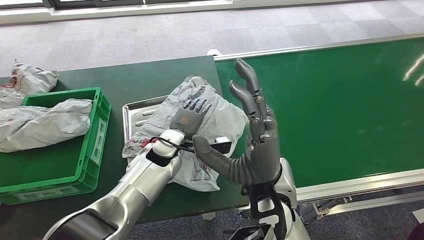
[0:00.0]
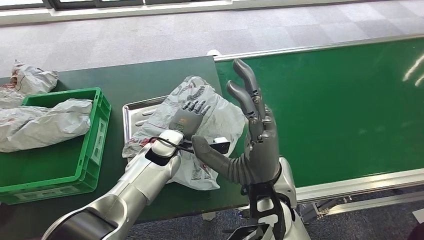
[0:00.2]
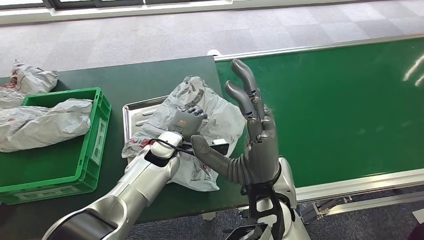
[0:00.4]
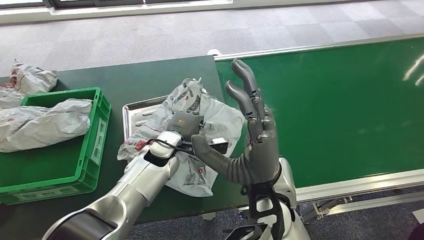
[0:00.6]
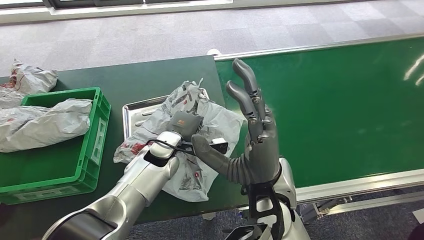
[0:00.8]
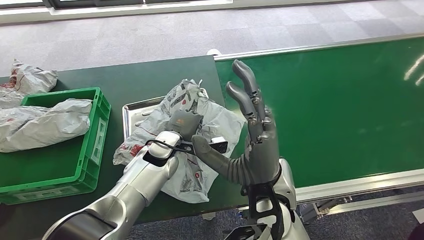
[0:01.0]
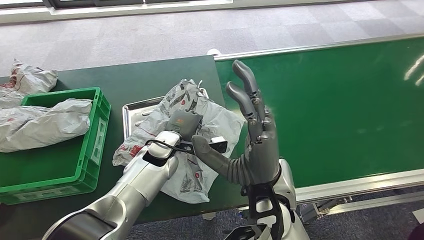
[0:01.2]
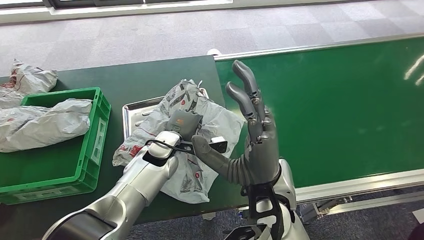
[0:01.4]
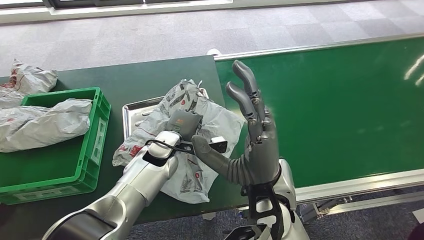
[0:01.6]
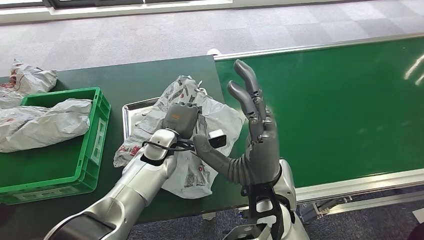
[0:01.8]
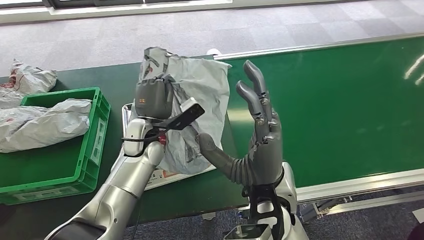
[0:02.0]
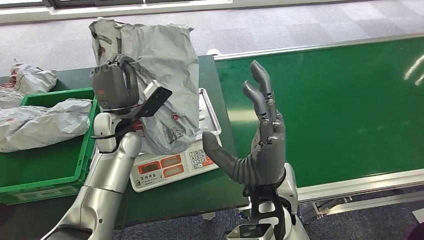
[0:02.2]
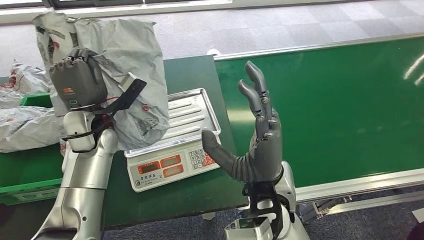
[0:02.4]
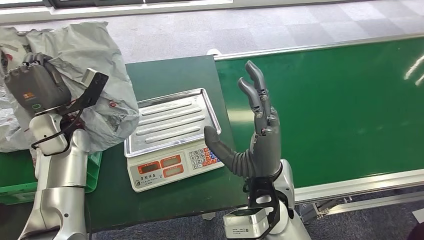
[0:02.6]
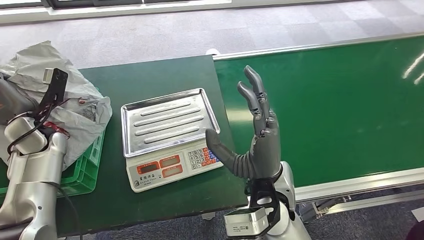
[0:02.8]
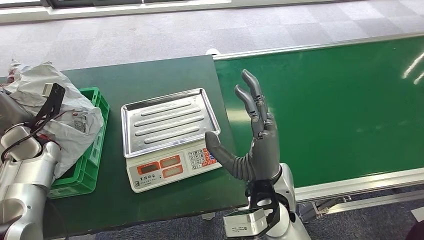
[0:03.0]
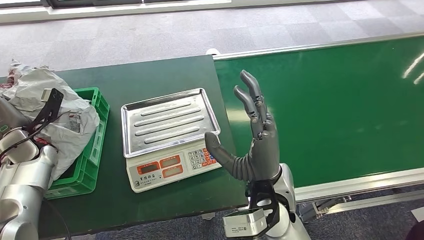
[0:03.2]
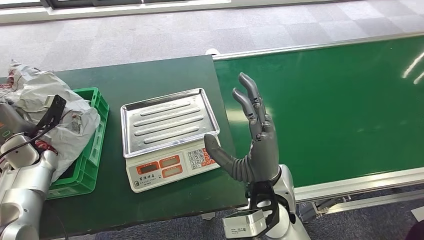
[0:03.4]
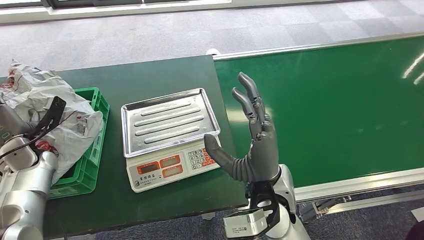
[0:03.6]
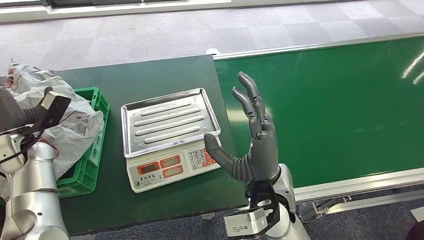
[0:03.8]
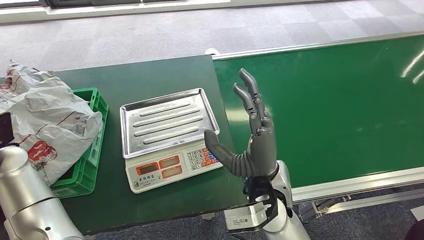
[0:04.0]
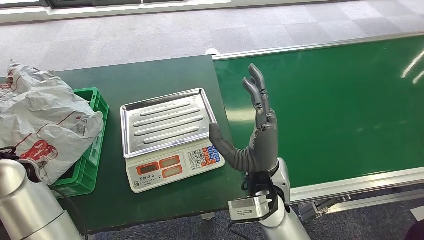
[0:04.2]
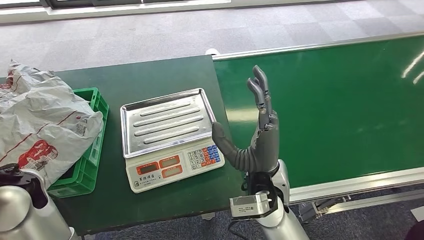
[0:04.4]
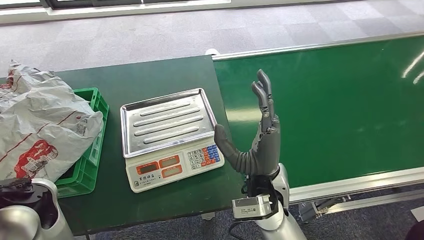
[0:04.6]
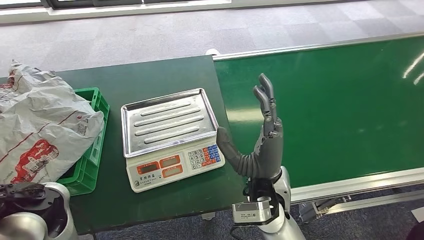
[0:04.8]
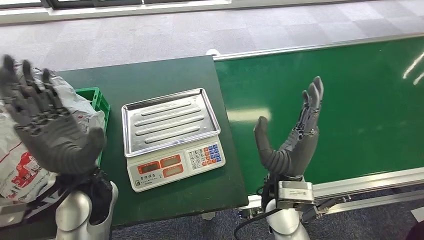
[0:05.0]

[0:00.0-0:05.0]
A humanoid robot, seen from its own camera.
Step, 0:00.0 to 0:02.6: Pick up the package from the inbound machine.
Step, 0:02.8 to 0:05.0: Place the package into the parcel locker.
0:00.0 to 0:01.6: The hands make only small movements.

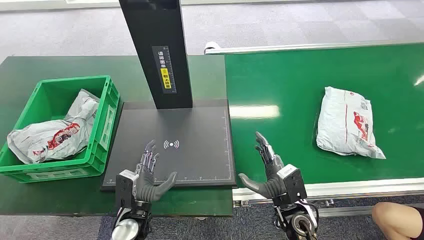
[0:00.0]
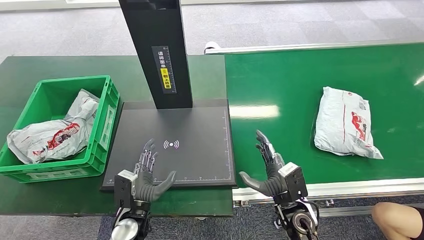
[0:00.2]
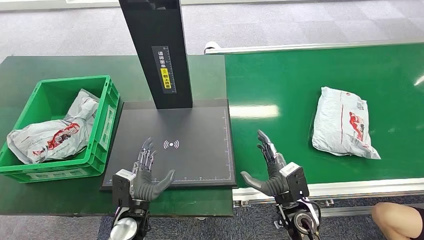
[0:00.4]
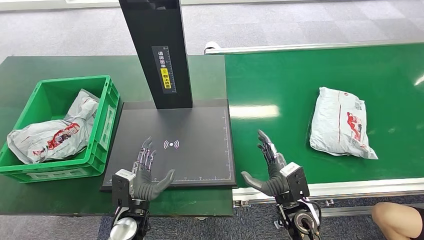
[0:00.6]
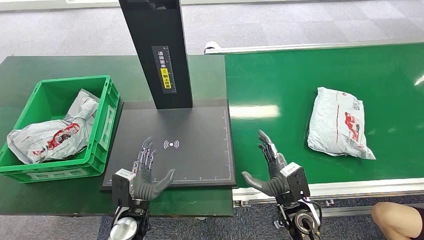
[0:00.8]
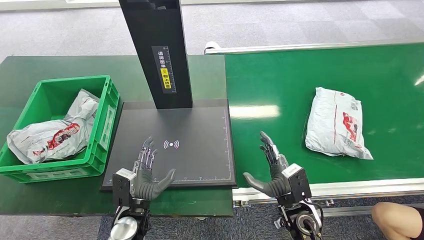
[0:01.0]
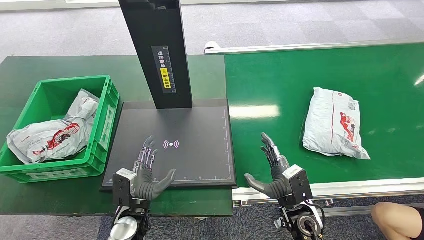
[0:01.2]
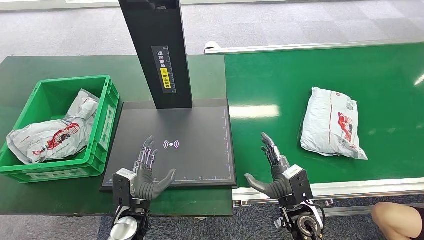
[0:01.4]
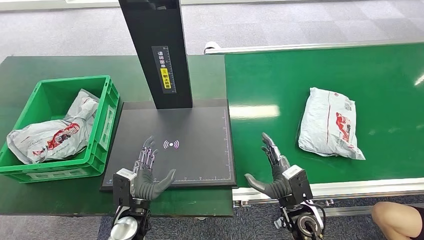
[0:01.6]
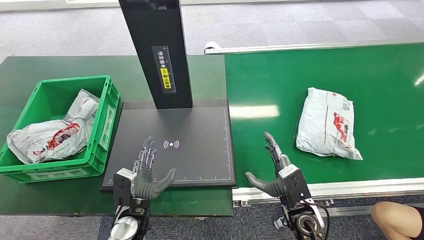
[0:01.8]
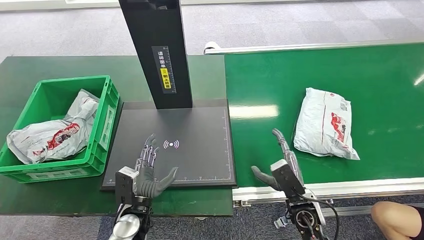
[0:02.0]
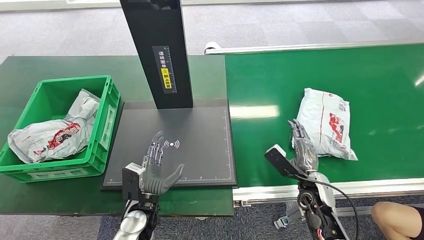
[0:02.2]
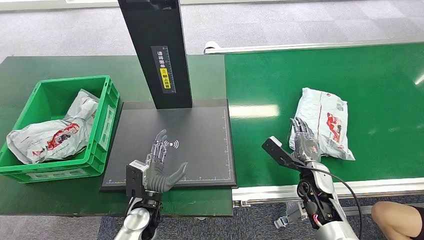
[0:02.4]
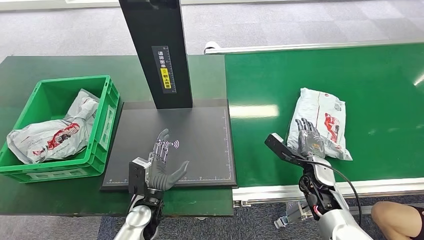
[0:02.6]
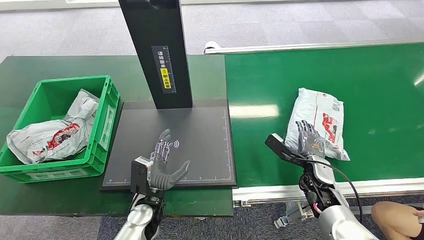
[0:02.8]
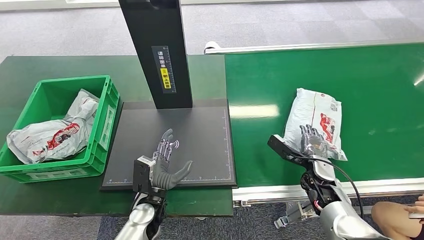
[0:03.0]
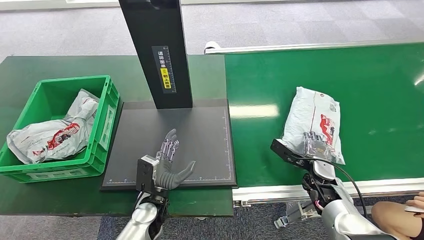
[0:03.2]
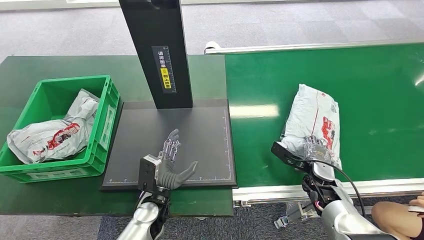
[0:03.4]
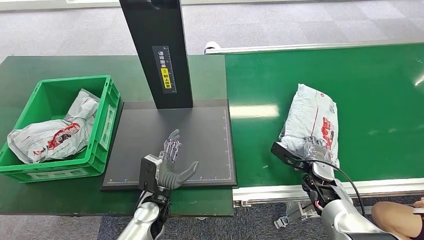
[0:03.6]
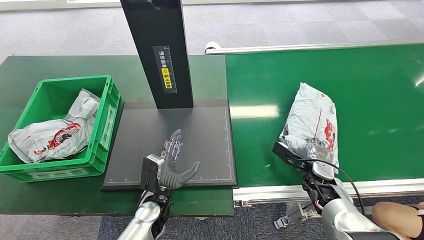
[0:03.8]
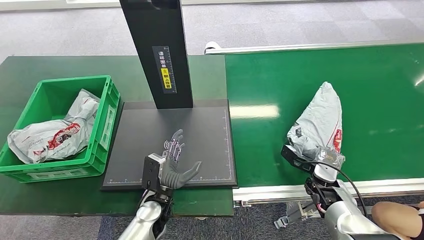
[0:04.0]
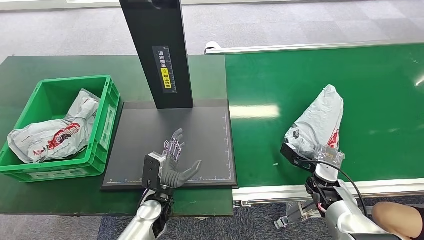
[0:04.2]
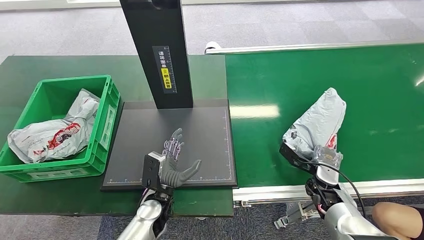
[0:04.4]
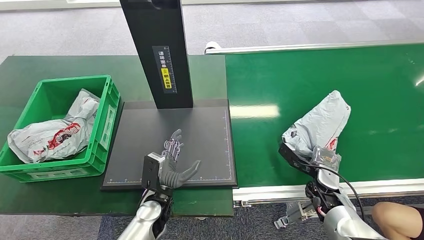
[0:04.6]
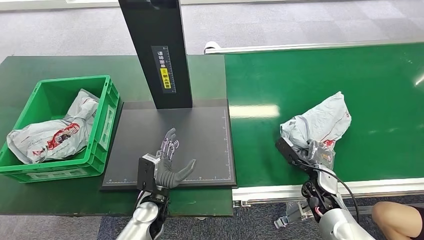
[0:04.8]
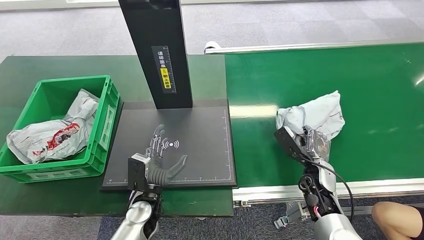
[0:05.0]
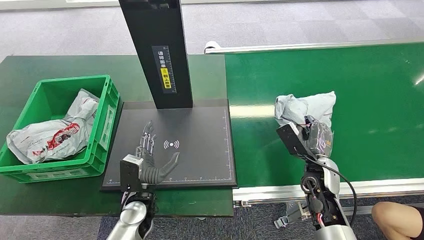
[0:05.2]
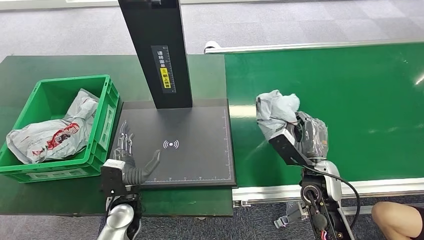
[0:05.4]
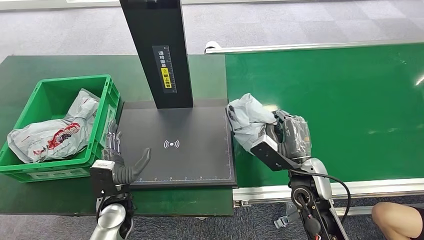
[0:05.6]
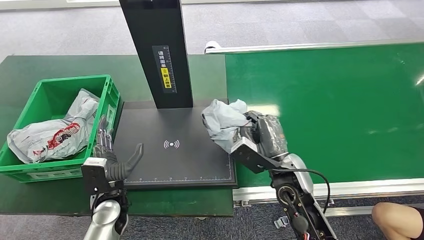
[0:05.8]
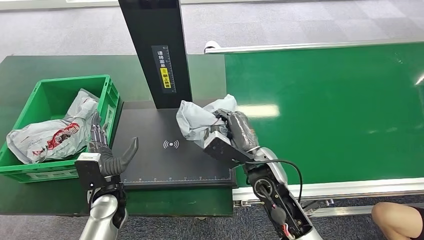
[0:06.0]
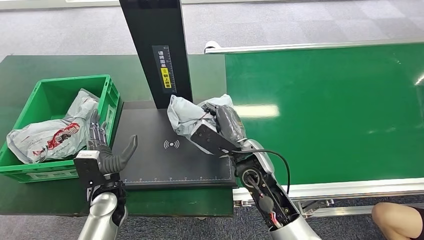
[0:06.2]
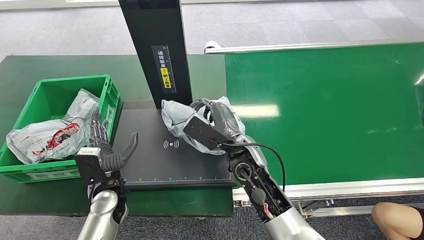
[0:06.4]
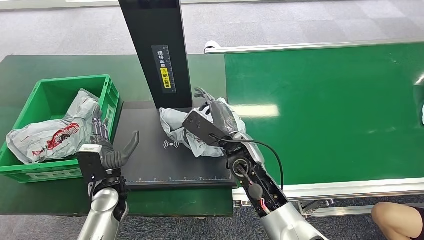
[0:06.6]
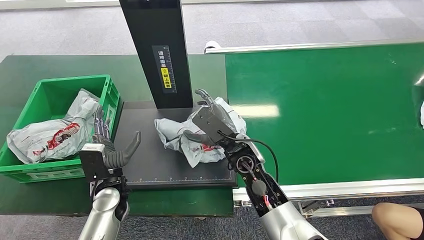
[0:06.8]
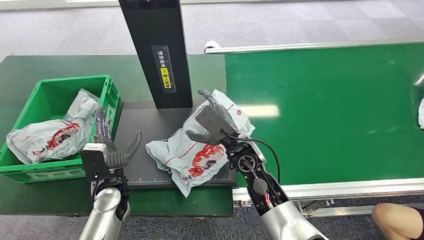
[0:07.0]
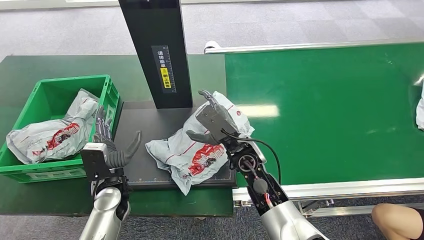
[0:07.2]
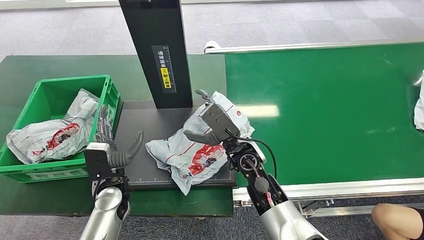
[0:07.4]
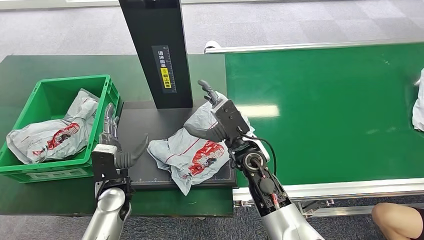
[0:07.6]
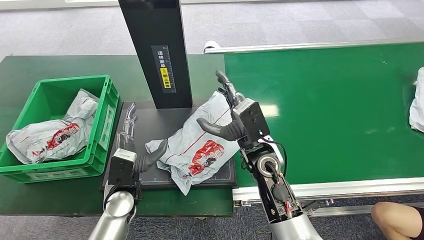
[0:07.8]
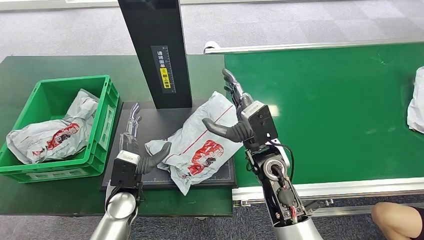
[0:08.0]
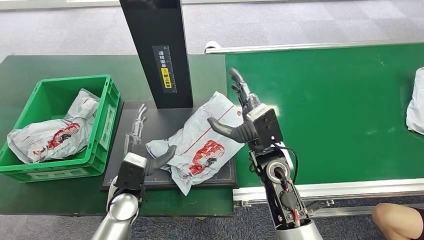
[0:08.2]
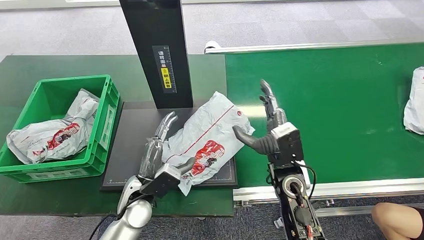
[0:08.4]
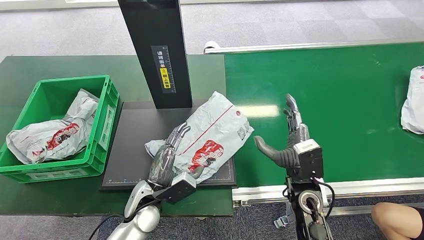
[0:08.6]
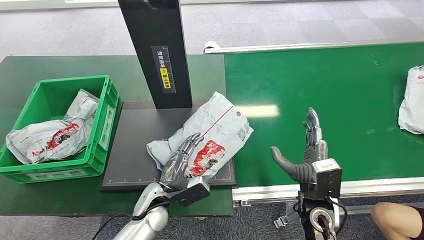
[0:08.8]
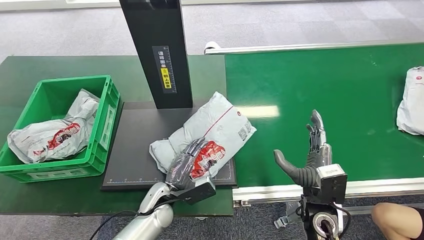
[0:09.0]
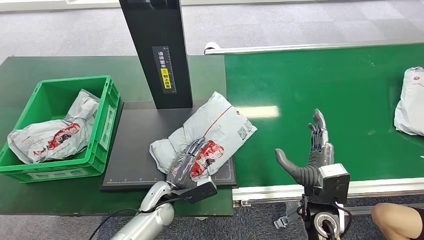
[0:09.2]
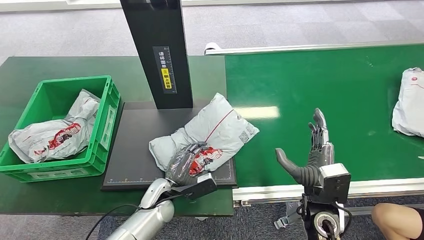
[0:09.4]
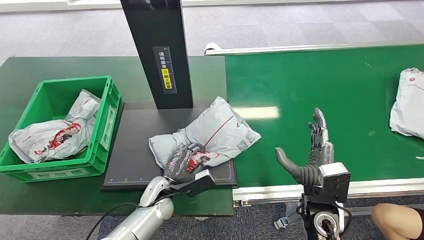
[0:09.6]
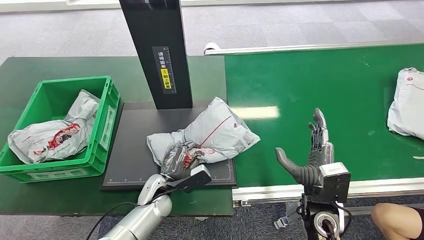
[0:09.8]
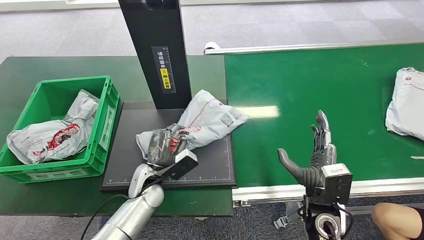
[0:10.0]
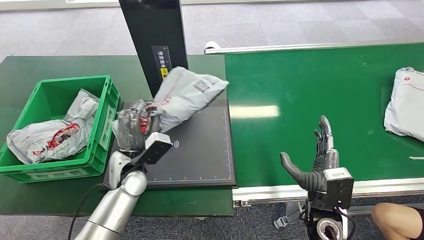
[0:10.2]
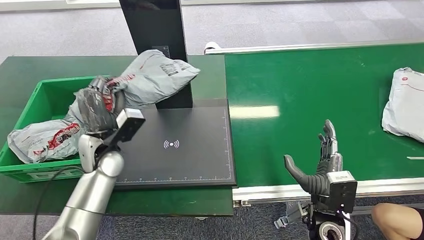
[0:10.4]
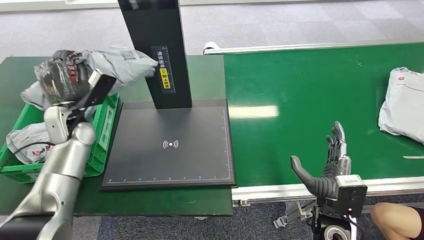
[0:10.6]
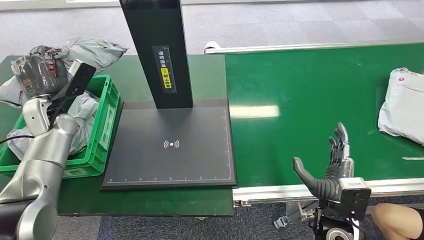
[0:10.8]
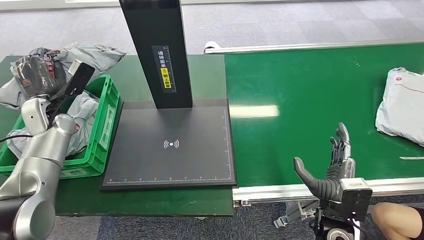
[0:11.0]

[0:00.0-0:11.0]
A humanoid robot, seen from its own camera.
Step, 0:00.0 to 0:05.4: Pick up the package from the conveyor belt.
Step, 0:05.8 to 0:08.2: Place the package onto the inbound machine.
Step, 0:08.4 to 0:10.6: Pick up the package from the inbound machine.
0:01.6 to 0:03.2: The left hand moves roughly 5 cm; the right hand shifts about 15 cm forward and to the right.
0:03.2 to 0:04.8: The hands make only small movements.

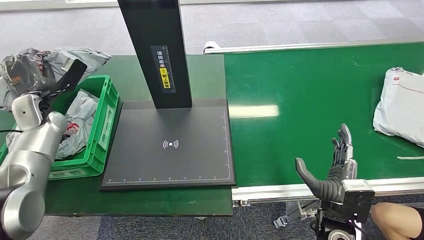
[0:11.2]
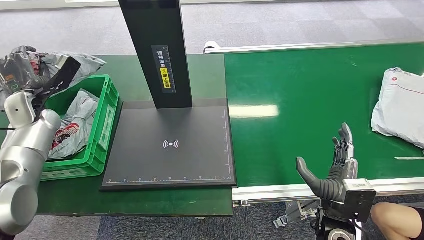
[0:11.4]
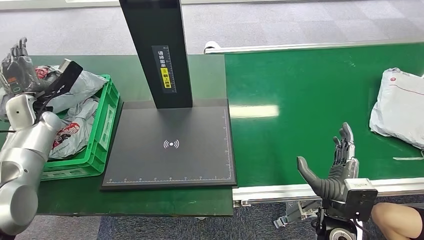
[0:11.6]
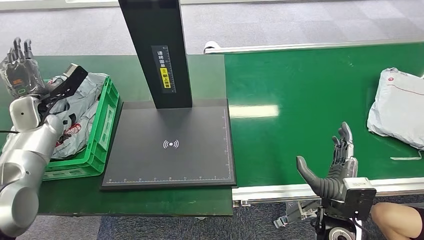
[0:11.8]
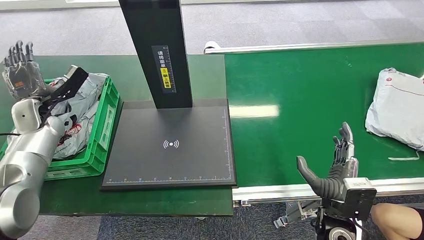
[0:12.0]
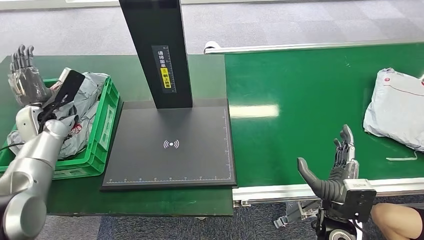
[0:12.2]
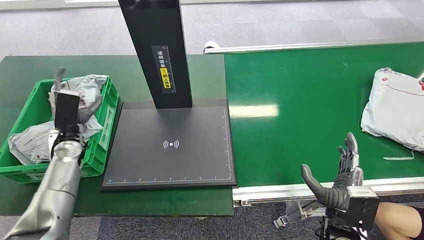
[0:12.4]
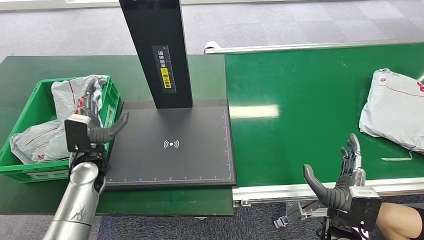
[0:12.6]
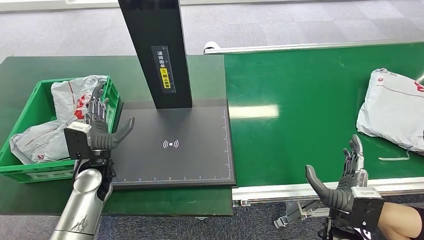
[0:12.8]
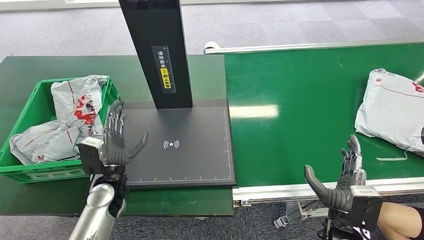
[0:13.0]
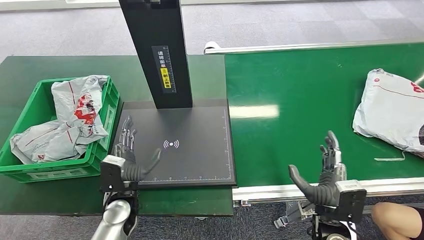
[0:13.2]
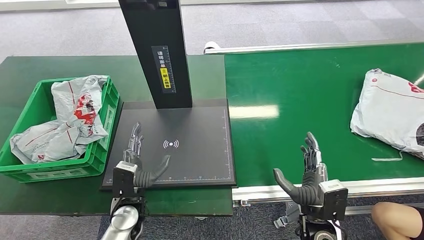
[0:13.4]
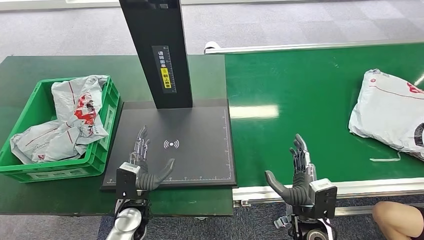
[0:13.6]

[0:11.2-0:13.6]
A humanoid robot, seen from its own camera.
Step, 0:11.2 to 0:13.6: Place the package into the parcel locker.
0:11.2 to 0:12.4: The left hand is displaced downward and to the right by some 10 cm.
0:12.4 to 0:13.6: The left hand goes approximately 25 cm to the right, backward and downward, while the right hand ends up some 5 cm from where it was.
